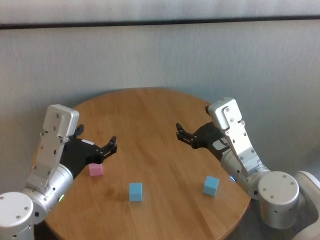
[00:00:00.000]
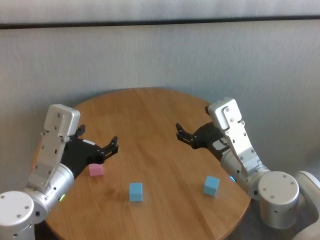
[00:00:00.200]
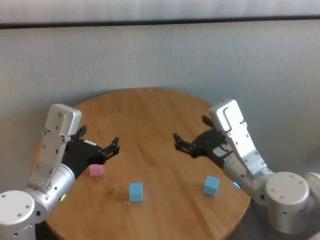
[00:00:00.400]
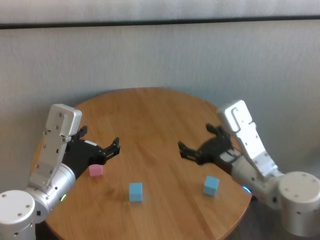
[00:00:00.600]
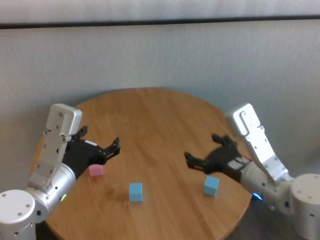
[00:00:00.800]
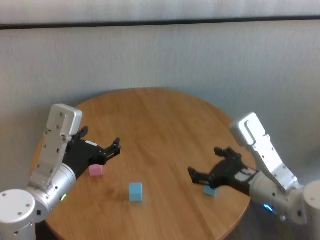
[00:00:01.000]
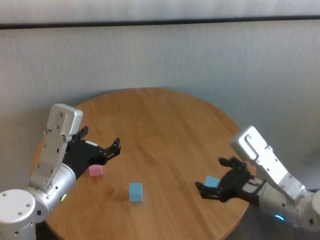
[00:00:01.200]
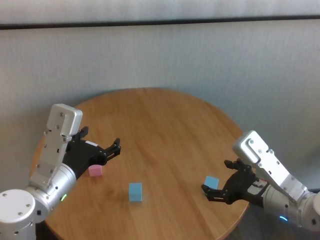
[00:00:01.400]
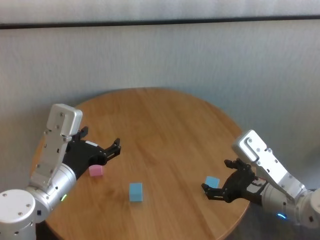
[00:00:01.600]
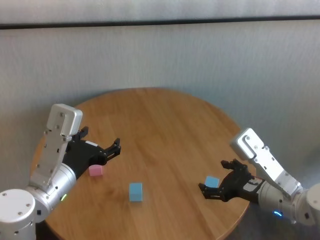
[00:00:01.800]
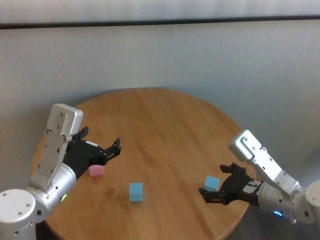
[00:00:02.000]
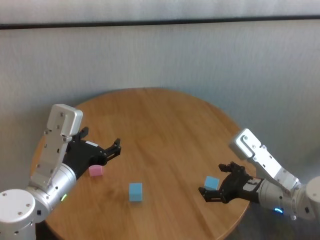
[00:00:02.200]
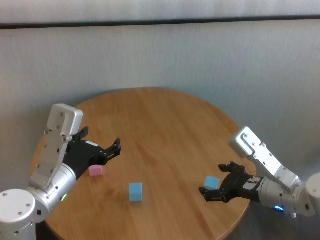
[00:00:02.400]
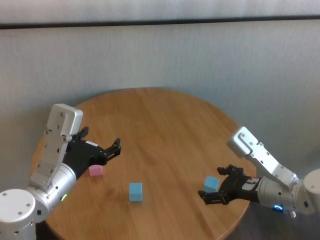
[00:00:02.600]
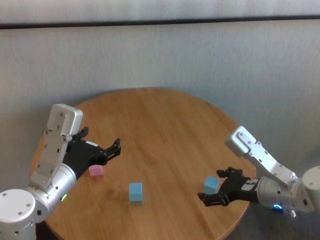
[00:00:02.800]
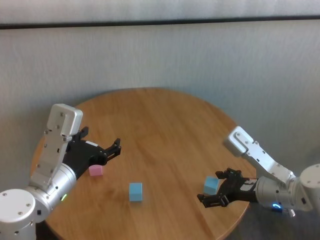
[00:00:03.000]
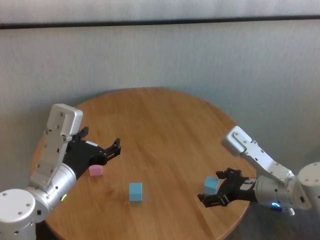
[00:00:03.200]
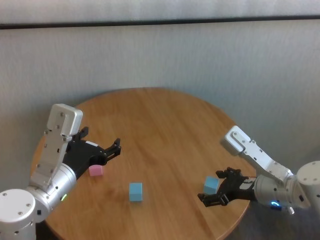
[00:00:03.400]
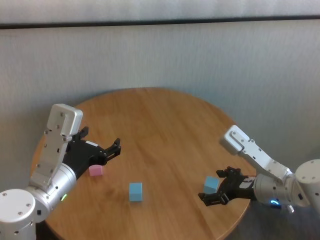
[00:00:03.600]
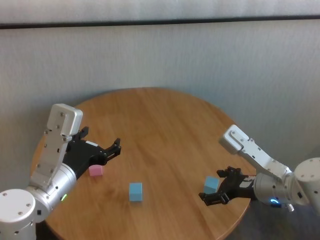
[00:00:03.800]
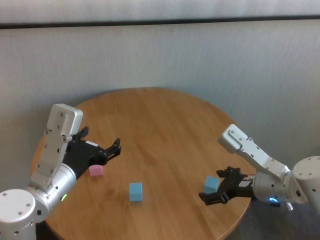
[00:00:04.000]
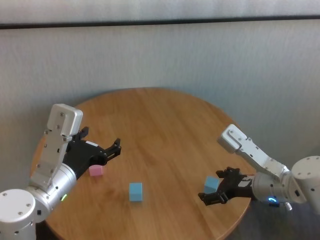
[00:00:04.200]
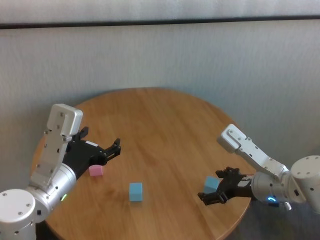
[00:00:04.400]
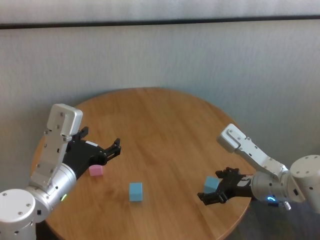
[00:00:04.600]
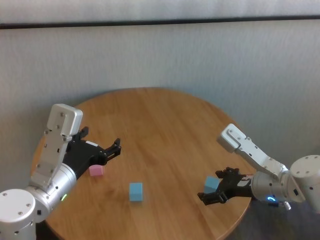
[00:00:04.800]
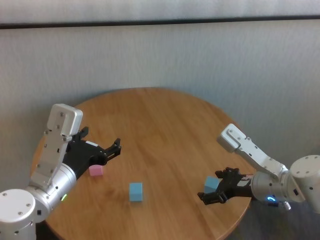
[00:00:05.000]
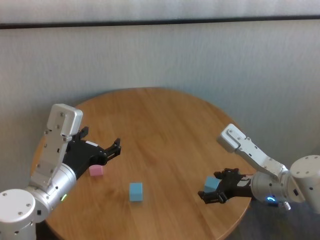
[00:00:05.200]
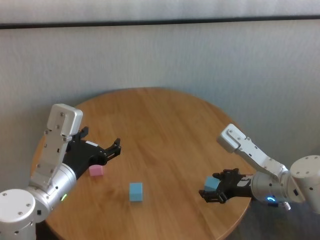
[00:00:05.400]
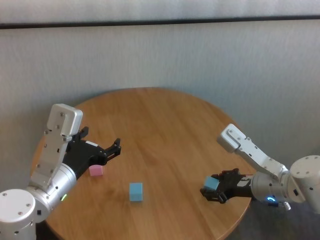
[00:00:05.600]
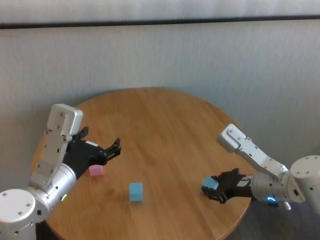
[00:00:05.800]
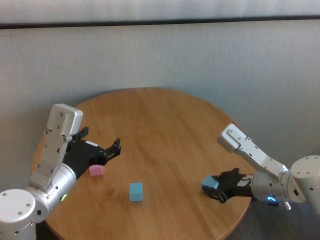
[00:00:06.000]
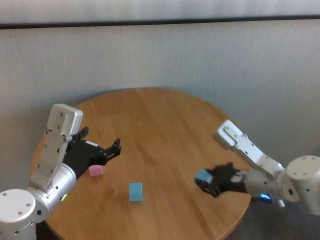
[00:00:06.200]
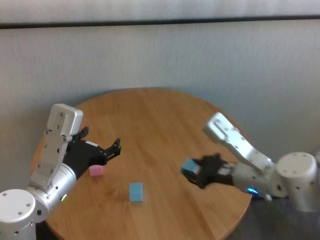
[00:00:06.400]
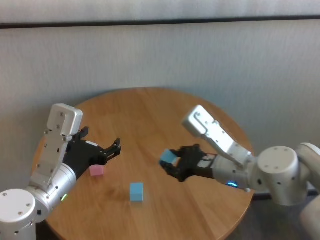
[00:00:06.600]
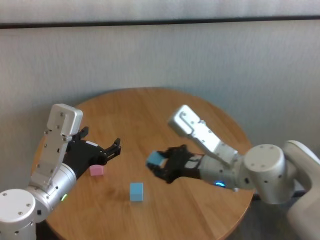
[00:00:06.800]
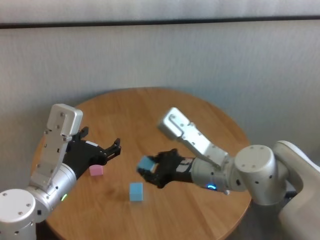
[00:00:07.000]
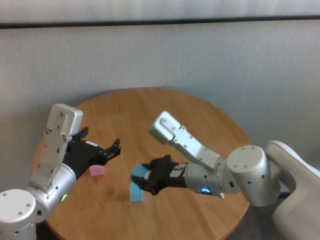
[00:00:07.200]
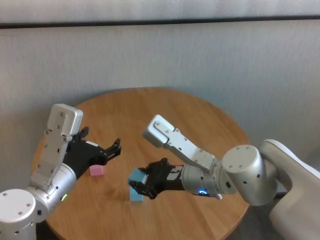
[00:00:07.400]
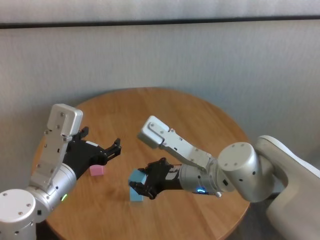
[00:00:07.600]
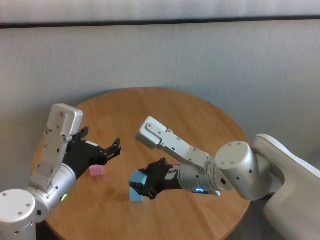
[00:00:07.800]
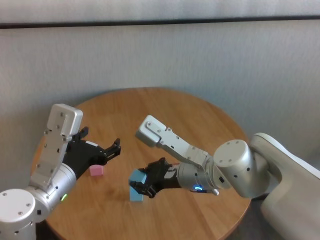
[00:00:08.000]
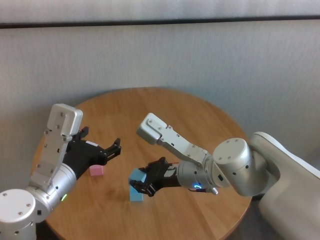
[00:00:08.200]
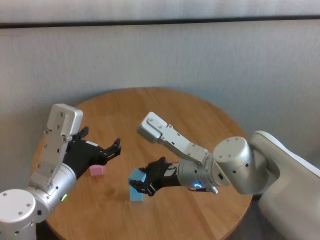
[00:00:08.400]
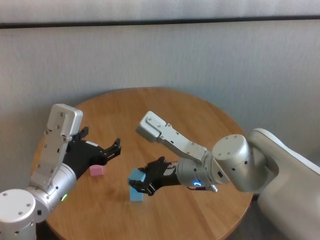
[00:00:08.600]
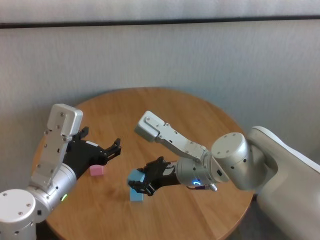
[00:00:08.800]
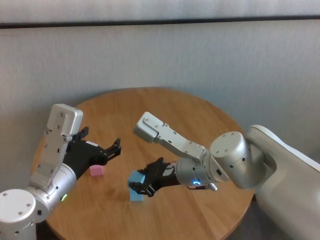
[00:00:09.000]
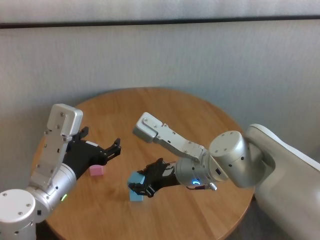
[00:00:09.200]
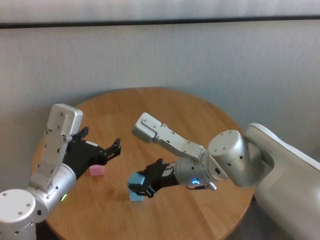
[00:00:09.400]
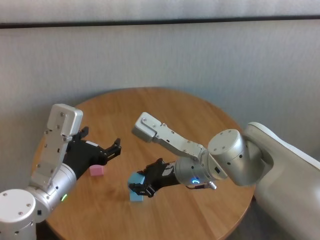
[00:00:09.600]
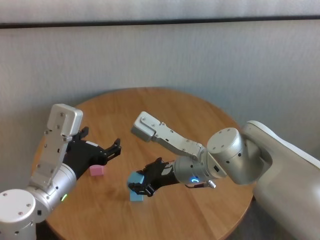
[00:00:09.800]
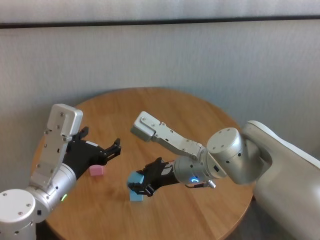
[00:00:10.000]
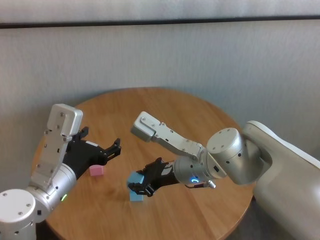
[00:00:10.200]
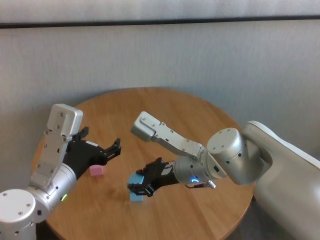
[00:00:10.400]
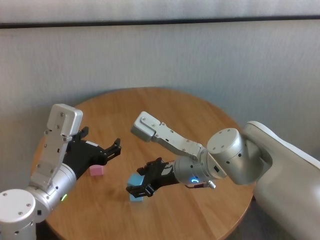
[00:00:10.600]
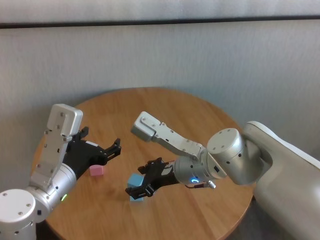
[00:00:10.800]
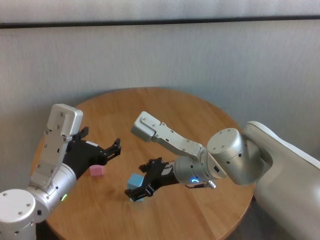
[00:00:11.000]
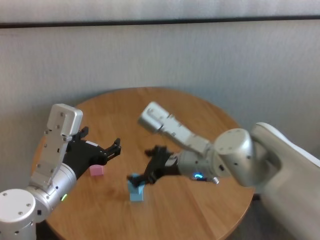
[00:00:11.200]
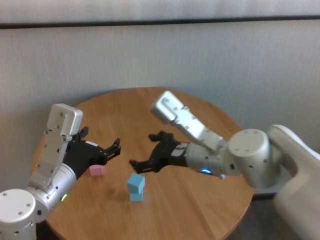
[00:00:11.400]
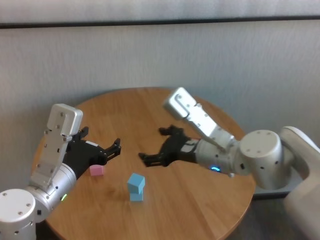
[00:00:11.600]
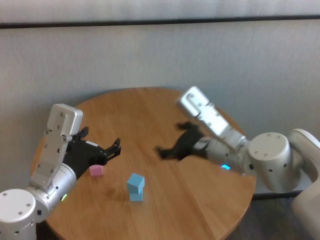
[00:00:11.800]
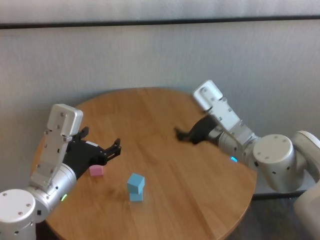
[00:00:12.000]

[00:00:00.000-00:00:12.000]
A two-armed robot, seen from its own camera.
Task of the whole recording: stack building blocks on the table.
Step, 00:00:00.000 to 00:00:05.800: Grasp the blue building block with right gripper.

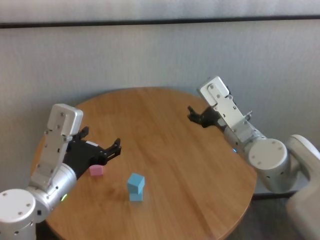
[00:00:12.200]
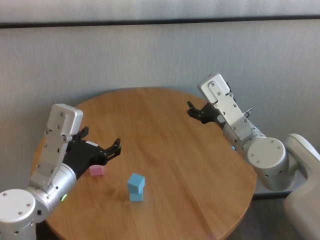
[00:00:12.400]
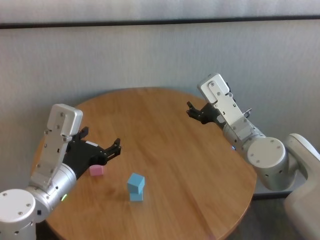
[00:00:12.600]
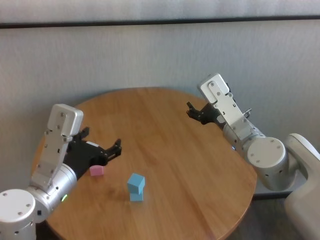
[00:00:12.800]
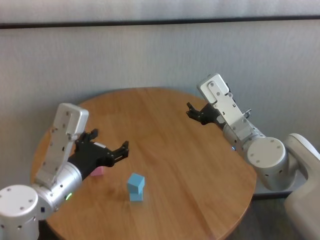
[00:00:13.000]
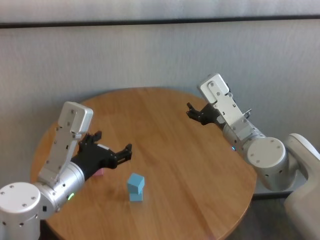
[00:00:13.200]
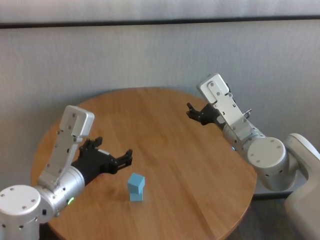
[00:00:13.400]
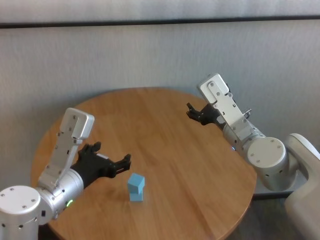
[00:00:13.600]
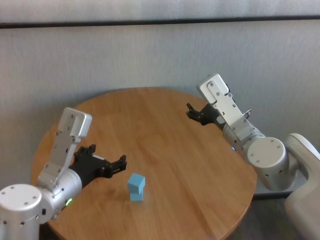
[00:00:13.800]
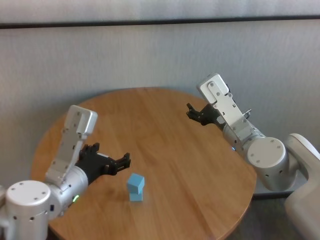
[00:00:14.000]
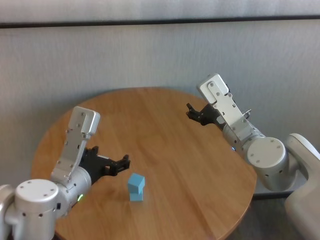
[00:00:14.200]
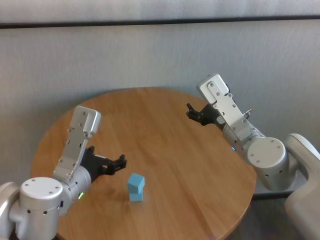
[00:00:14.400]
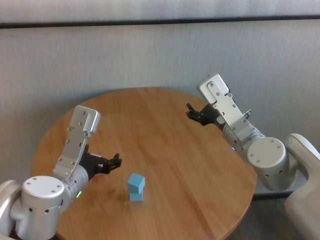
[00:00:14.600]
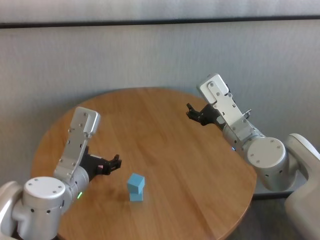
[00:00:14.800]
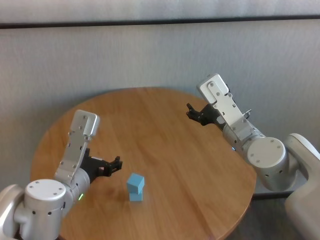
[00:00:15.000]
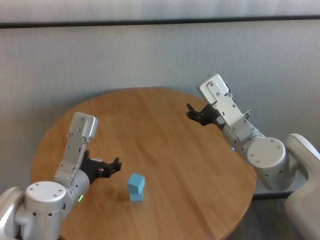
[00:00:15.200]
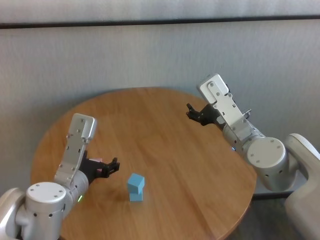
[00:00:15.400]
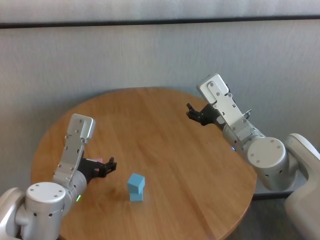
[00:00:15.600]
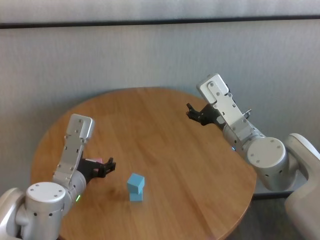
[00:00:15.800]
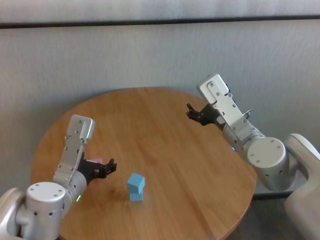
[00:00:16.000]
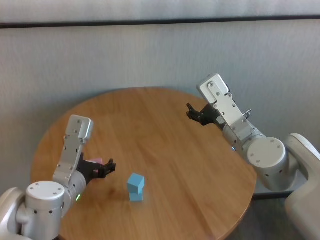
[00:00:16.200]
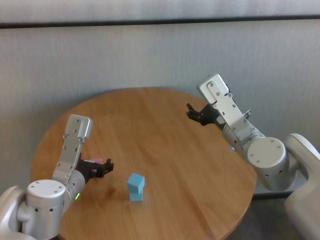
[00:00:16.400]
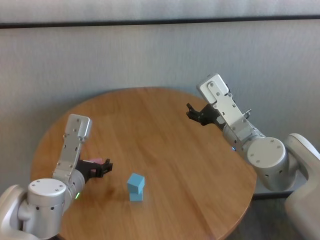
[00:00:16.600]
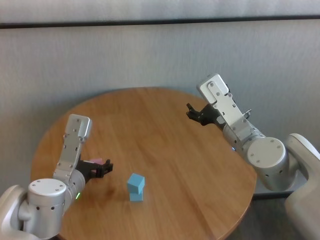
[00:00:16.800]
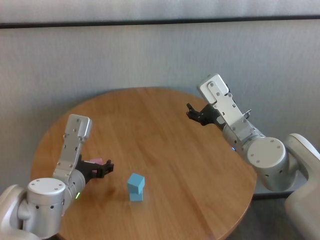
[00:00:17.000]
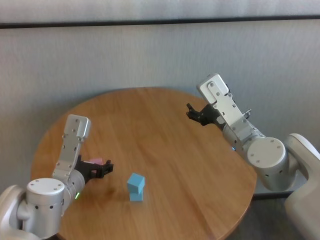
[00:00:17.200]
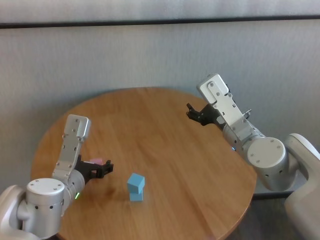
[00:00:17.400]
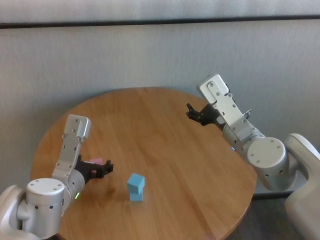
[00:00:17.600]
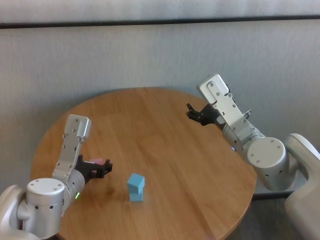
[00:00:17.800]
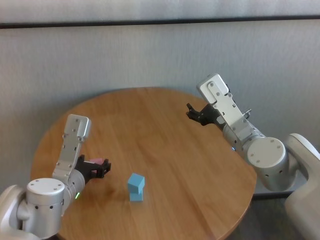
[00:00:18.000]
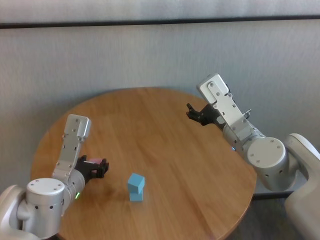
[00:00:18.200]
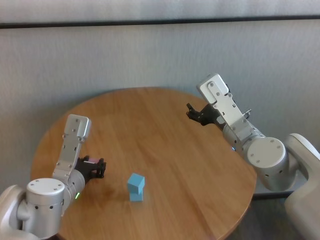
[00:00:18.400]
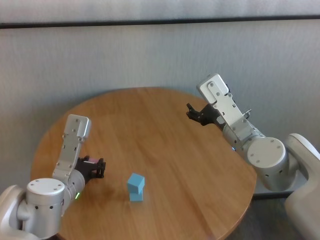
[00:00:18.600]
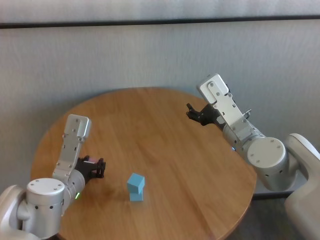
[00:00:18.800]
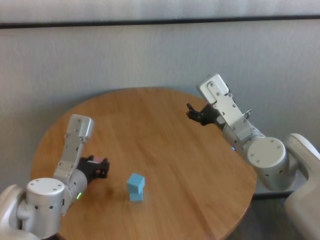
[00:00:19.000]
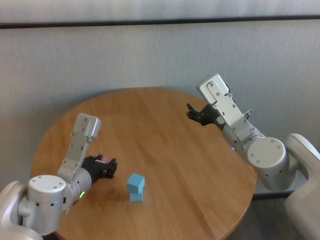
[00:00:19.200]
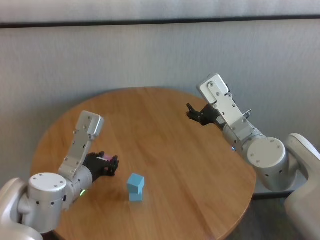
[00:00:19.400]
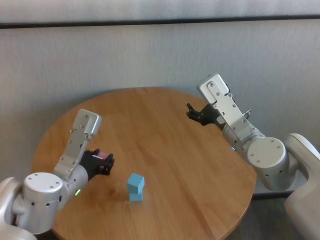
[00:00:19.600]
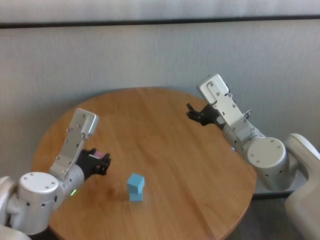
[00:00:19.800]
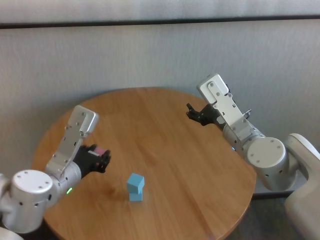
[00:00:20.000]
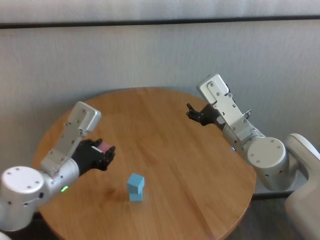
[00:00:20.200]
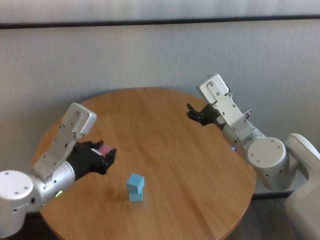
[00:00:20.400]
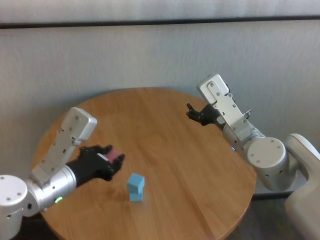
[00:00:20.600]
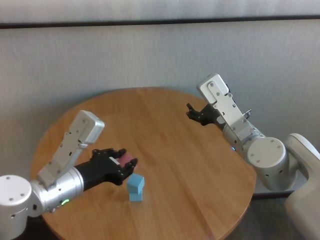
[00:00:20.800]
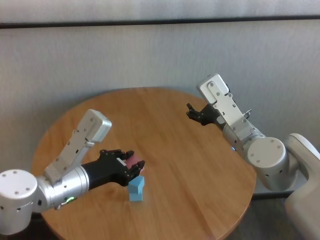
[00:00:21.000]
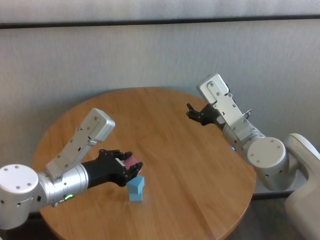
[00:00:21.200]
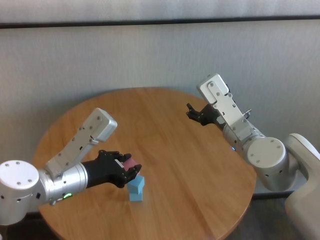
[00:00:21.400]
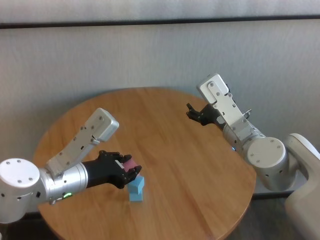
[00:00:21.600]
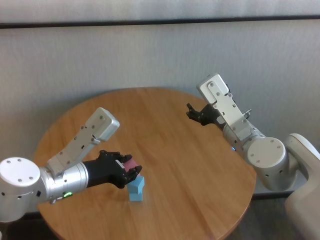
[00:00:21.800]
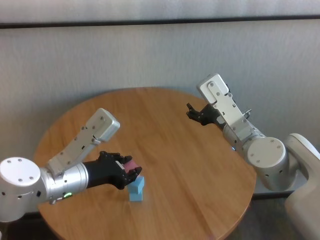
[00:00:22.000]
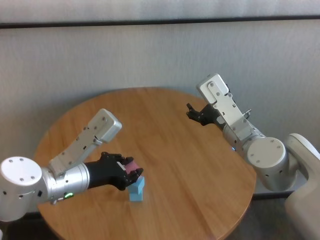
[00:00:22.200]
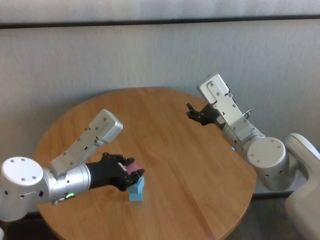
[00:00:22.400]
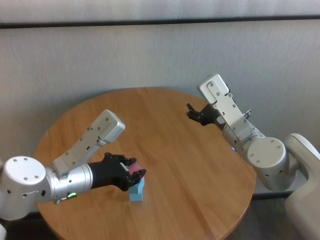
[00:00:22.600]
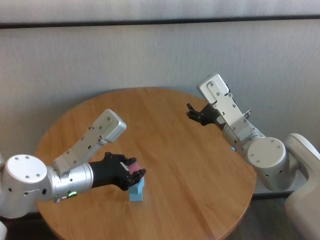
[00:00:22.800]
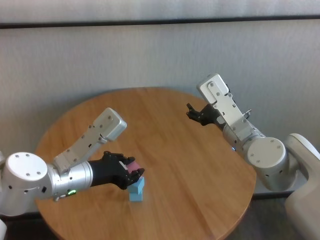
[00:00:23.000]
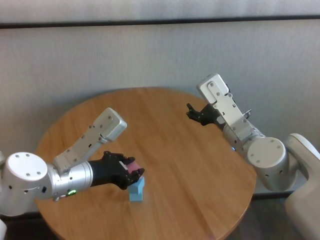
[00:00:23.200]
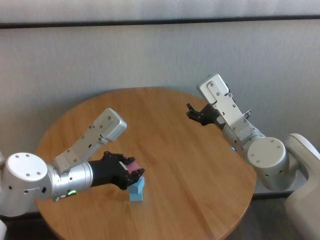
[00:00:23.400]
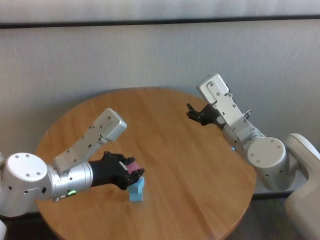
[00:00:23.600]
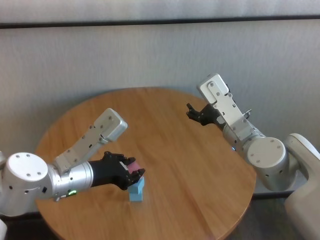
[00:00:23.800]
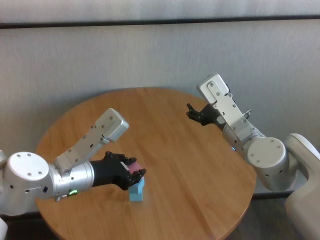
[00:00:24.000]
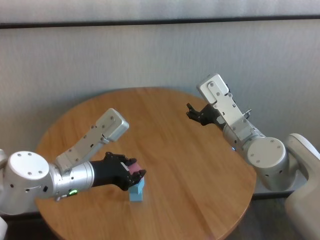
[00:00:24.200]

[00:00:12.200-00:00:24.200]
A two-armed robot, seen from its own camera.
Task of the whole recording: stack building blocks on the table.
Step, 00:00:12.200 to 00:00:18.800: Grasp the pink building block with left gripper.
